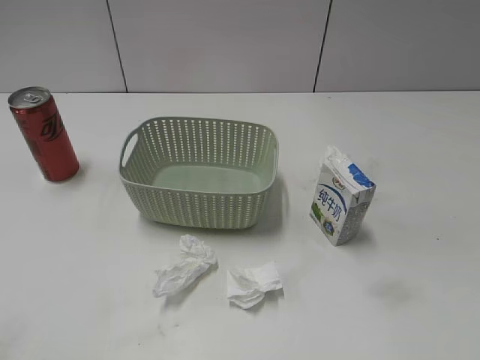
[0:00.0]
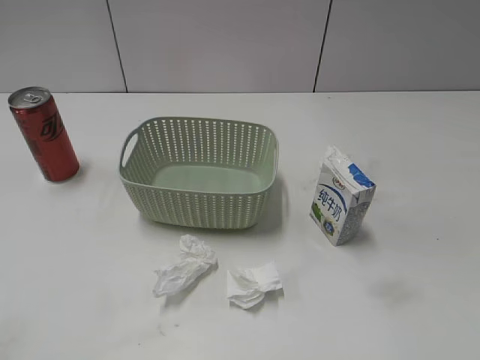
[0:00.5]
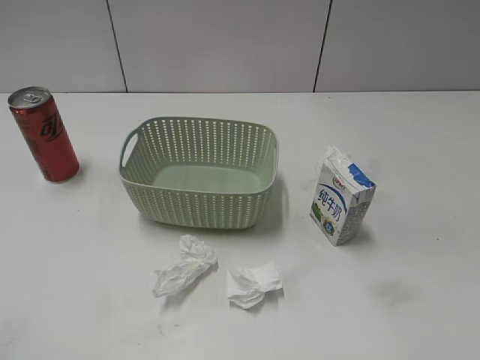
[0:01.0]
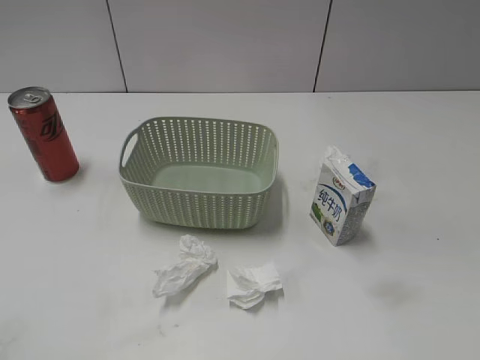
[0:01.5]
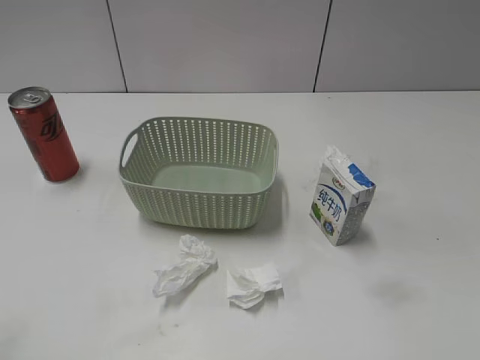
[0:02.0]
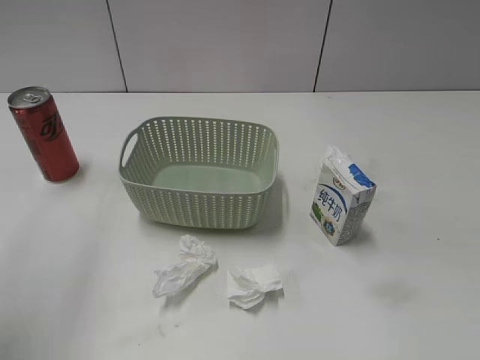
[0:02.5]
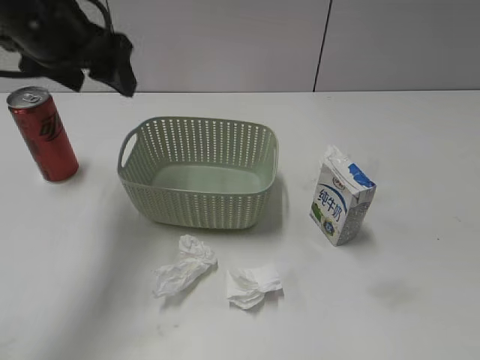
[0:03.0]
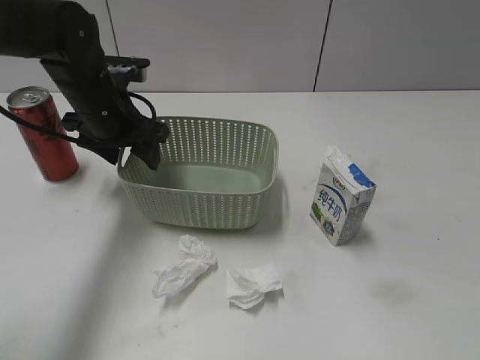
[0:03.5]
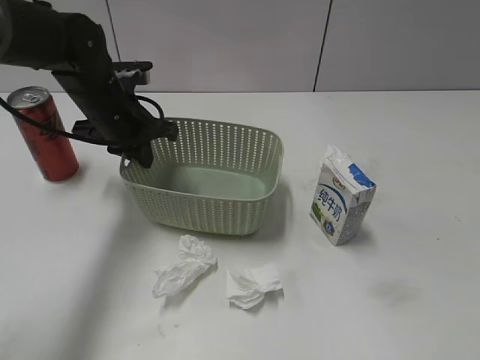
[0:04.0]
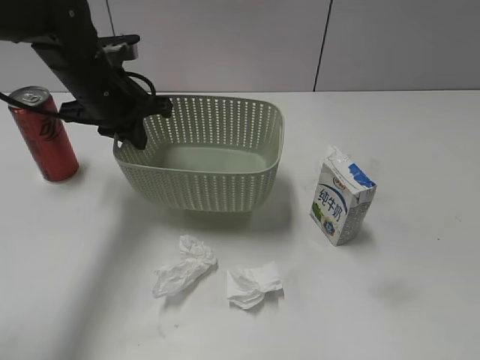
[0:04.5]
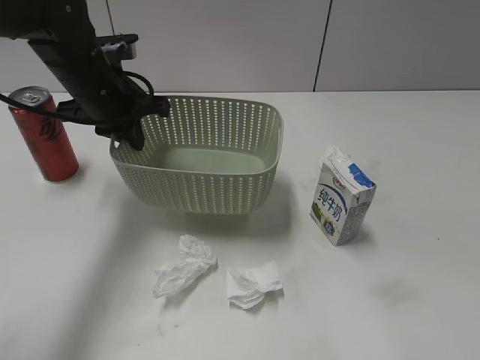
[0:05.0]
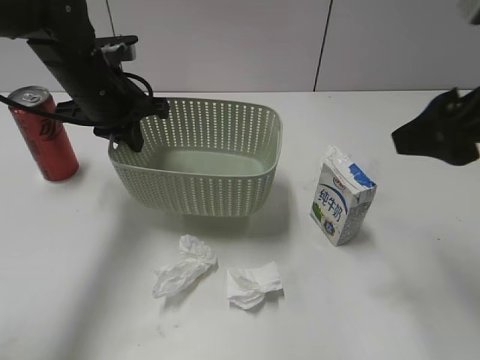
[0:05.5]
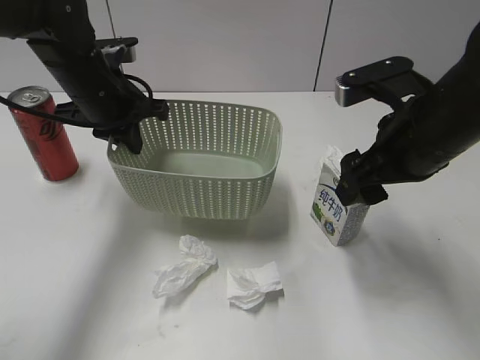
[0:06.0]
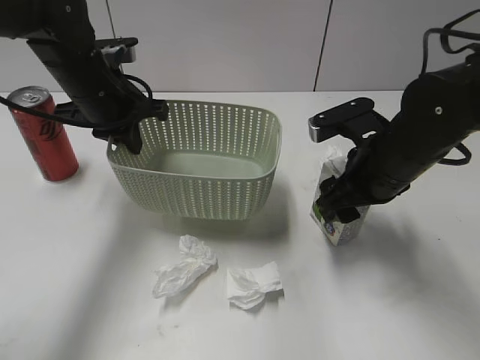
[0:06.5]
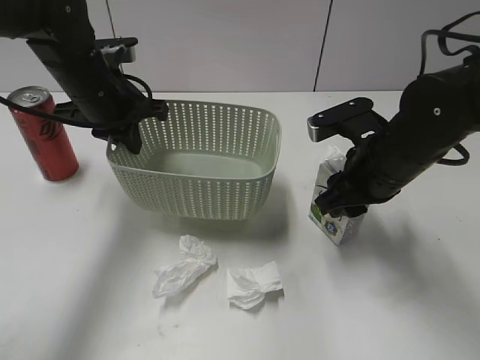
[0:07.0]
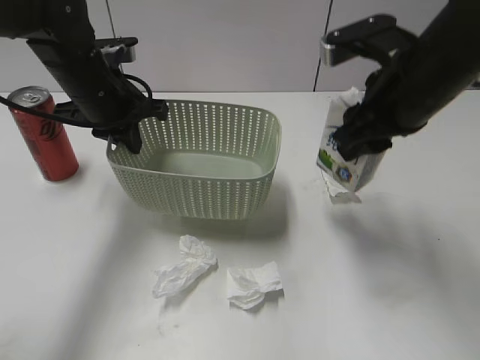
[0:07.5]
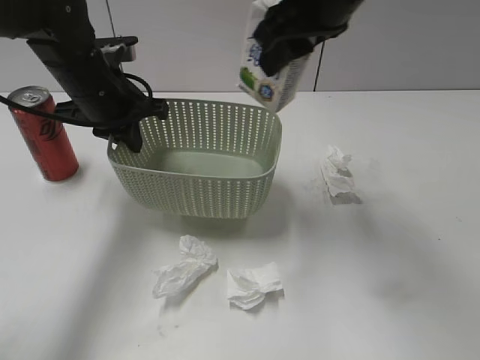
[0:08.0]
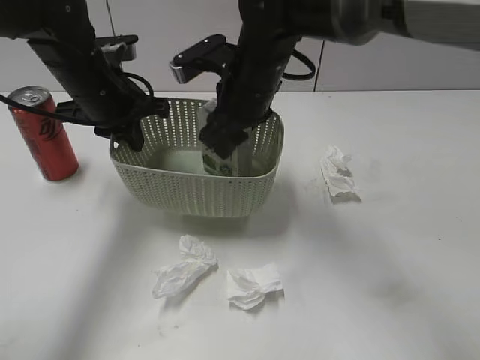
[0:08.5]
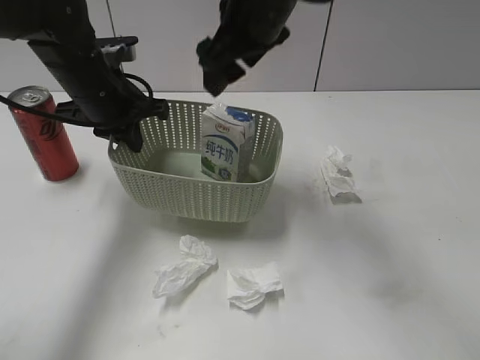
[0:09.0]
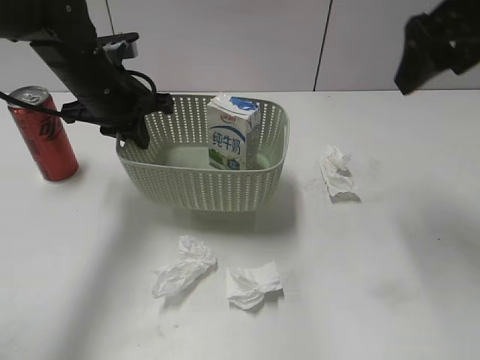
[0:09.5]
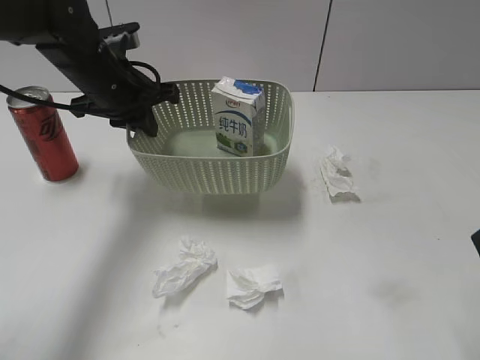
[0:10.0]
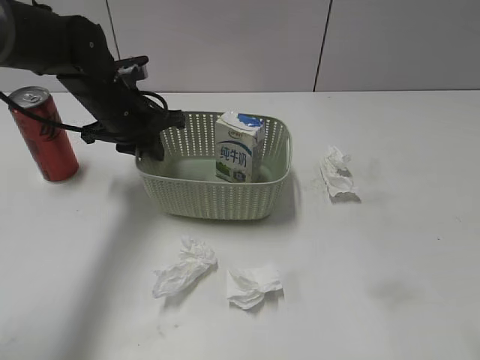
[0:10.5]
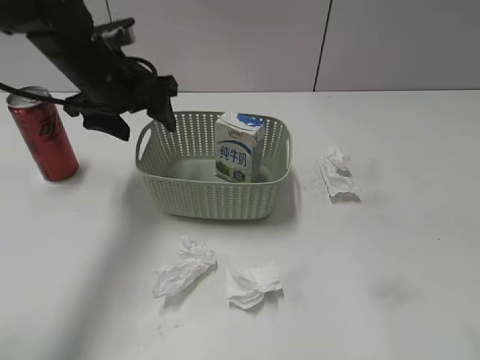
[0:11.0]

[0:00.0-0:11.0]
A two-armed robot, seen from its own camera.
Step, 0:03.0 to 0:03.5: Grasp the basket with left gripper.
Step, 0:04.0 to 0:04.5: Lift the basket with left gripper.
Step, 0:05.0 to 0:06.5: Grasp the milk with right gripper.
Step, 0:07.0 to 0:09.0: Place the milk in the basket with right gripper.
0:02.0 to 0:03.5: The left gripper is displaced forward, downward and to the right by approximately 40 cm.
0:03.5 to 0:05.5: The right gripper travels forward by approximately 20 cm. The left gripper closes up.
0:05.5 to 0:07.5: The right gripper heads forward, to the left and downward, covering about 10 cm, and closes its fingers.
0:07.5 to 0:09.0: The right gripper travels to the left and forward by about 15 cm, and opens.
0:09.0 to 0:11.0: The right gripper travels backward and to the right by roughly 35 cm; the left gripper opens.

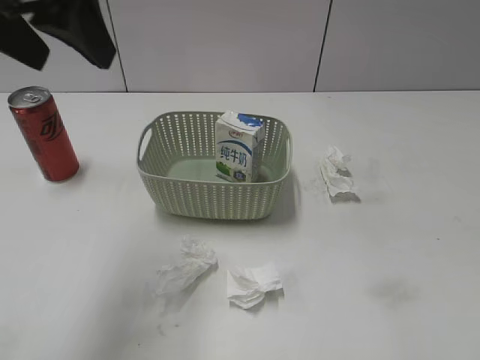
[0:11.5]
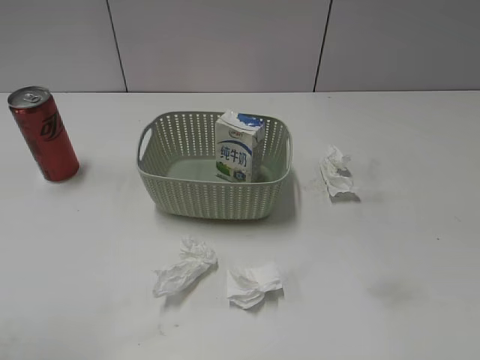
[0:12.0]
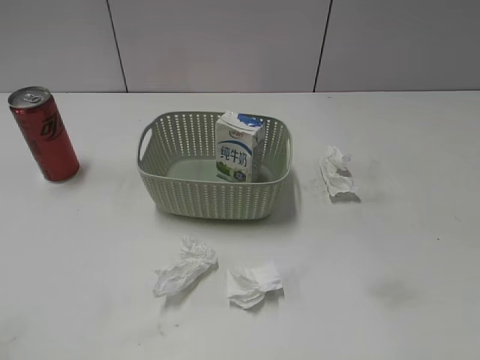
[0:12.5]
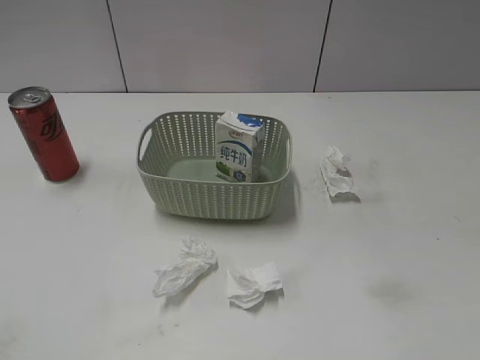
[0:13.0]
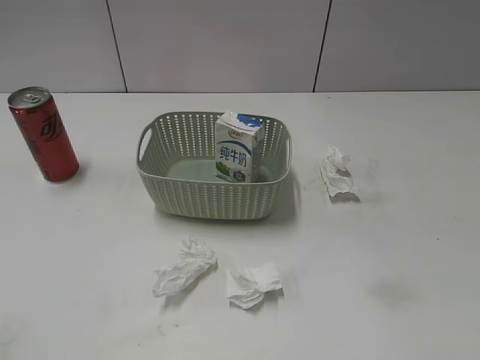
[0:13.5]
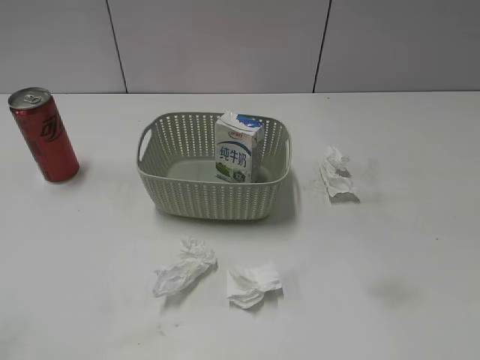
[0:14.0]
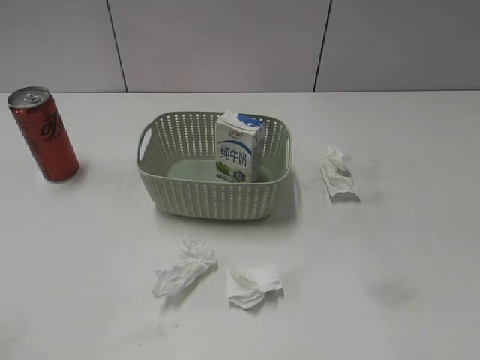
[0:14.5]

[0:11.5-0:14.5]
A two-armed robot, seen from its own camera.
0:11.5 to 0:13.0: The left gripper is displaced backward, to the left and downward by some 25 cm.
